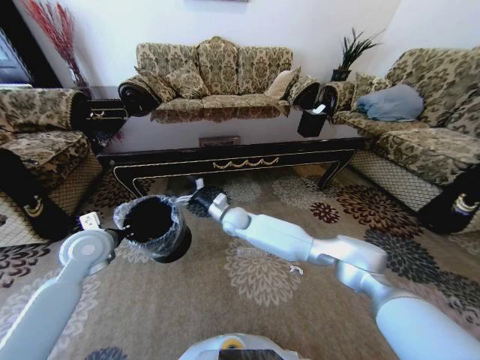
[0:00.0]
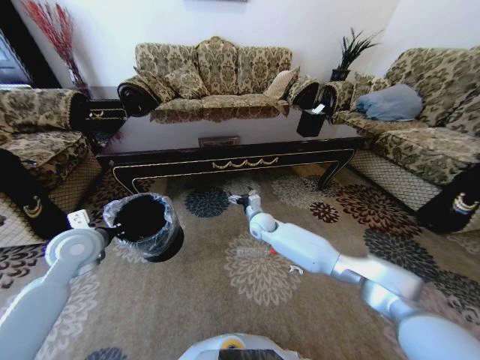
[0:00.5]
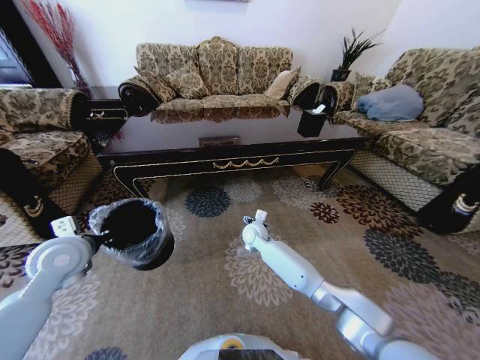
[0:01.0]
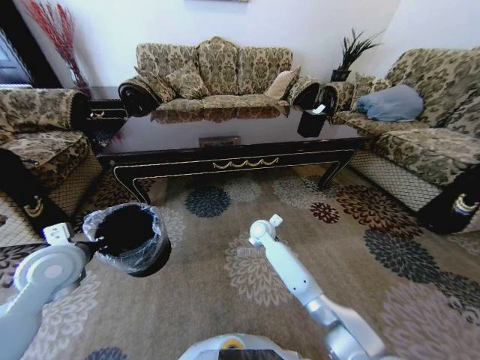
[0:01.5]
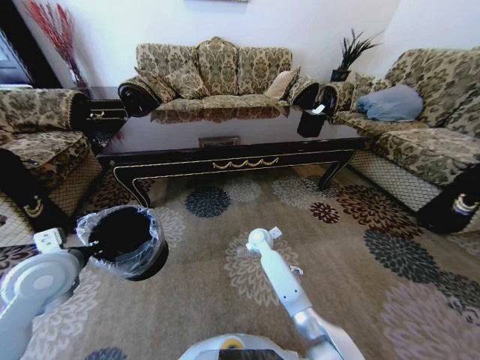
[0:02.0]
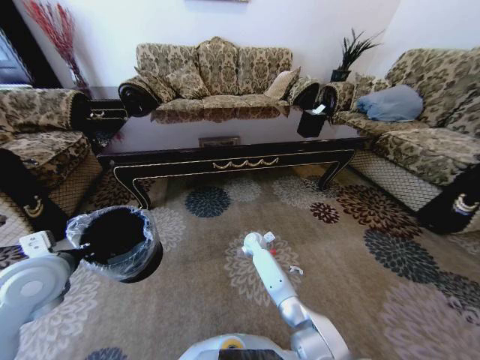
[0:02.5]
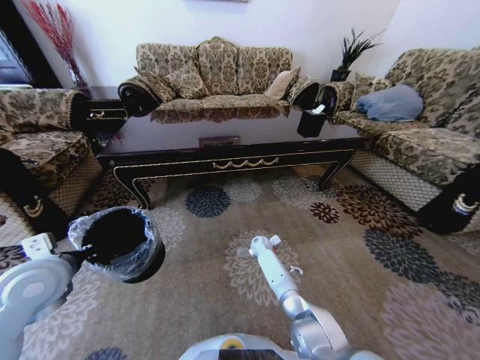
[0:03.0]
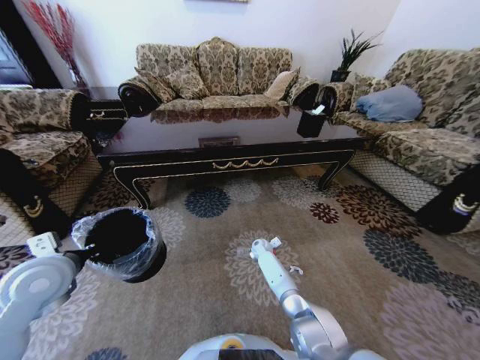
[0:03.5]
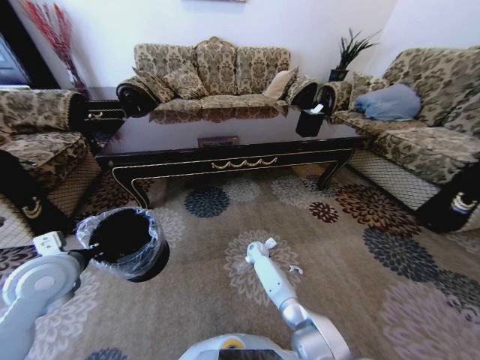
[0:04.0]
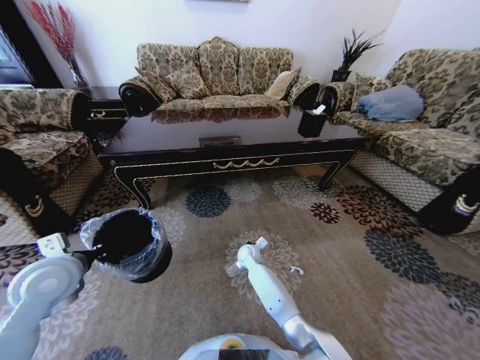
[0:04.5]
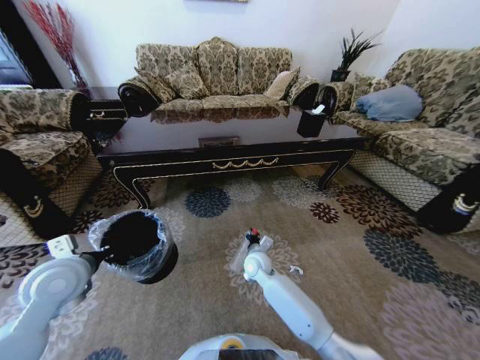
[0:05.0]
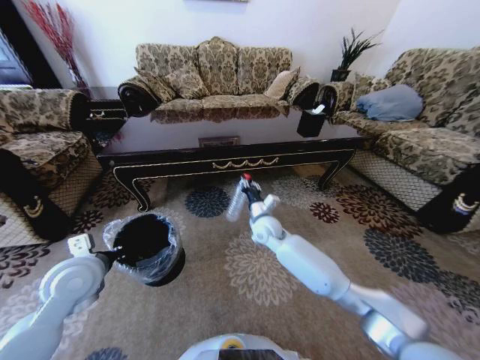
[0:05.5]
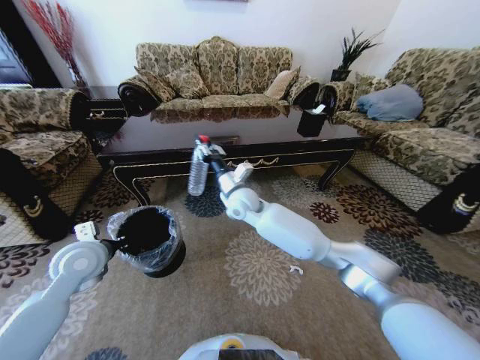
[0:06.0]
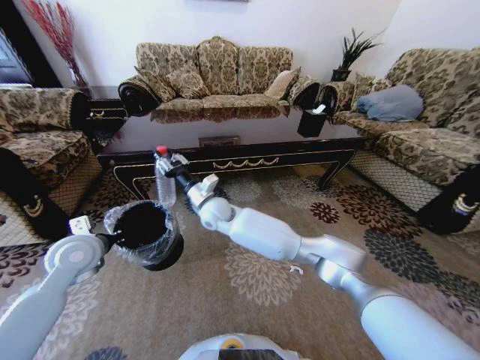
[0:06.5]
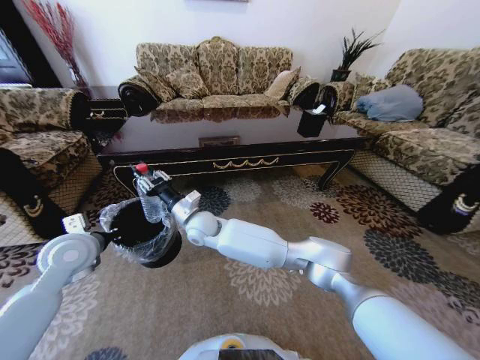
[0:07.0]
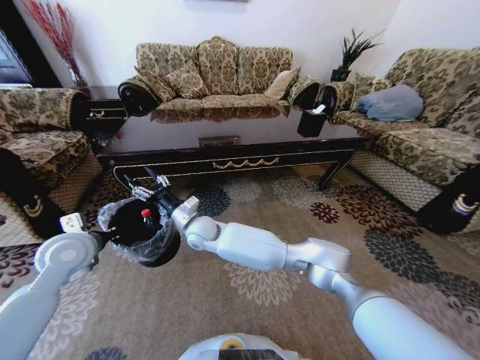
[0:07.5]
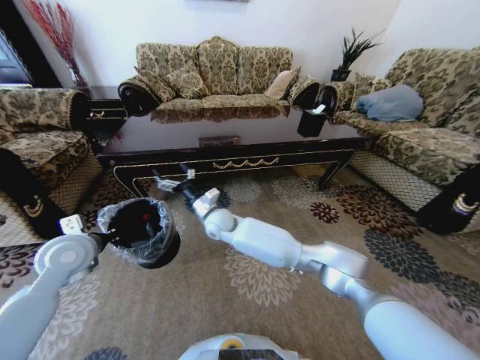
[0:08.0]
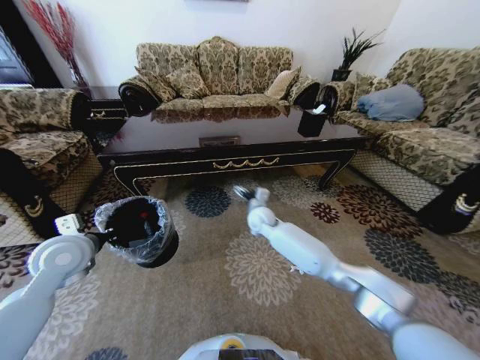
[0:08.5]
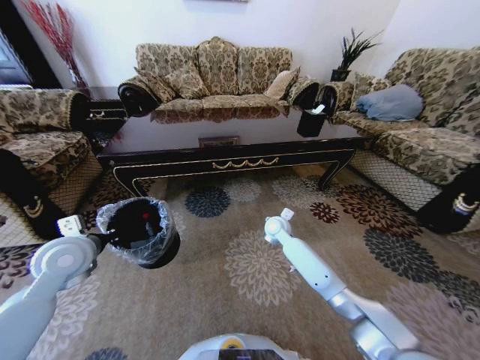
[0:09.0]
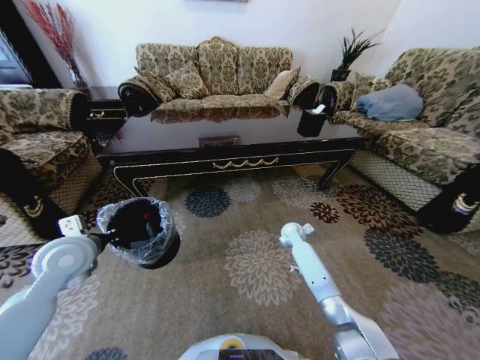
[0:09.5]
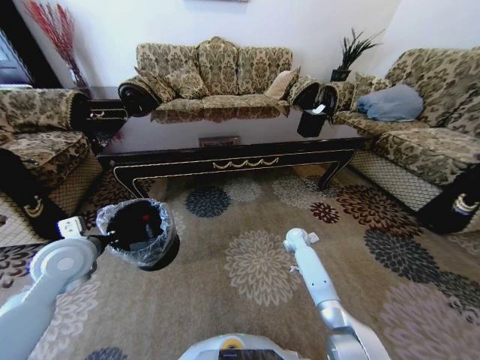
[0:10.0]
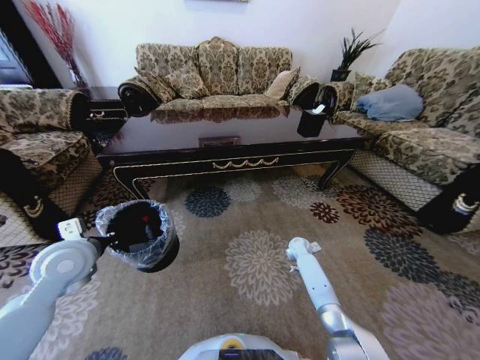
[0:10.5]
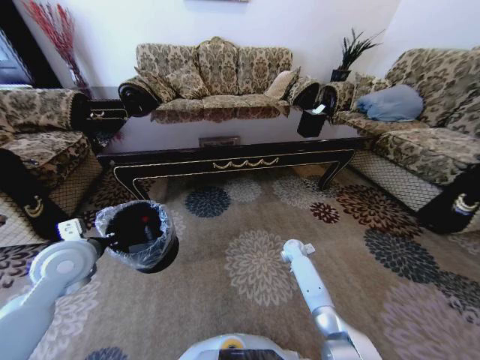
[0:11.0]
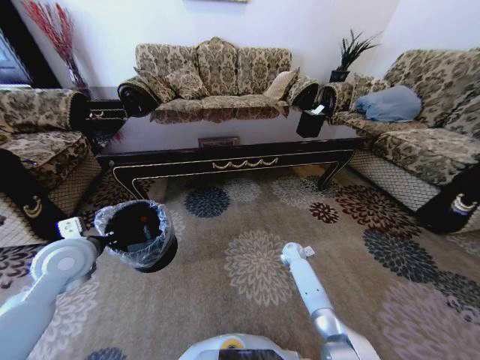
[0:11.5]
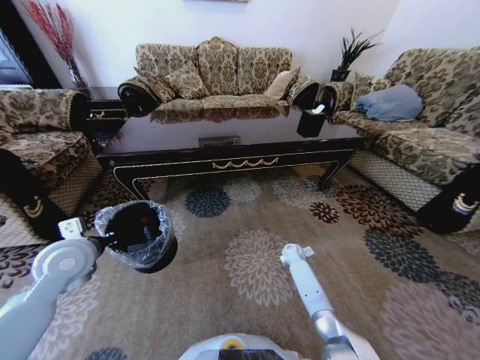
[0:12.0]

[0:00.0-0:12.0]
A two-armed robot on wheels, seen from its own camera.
Task of the whole recording: Move to the front of the table and pick up the trash from the floor, then place it into the trash bin.
0:00.0 to 0:02.0: The left gripper heads backward, covering approximately 10 cm; the right gripper is displaced to the right and downward by about 15 cm.
0:02.0 to 0:04.0: The right gripper moves downward, some 10 cm, and closes.
0:04.0 to 0:06.0: The left gripper ends up roughly 5 cm from where it was. The right gripper heads upward, covering about 35 cm.
0:06.0 to 0:08.0: The right gripper is displaced downward and to the left by about 10 cm, and opens its fingers.
0:08.0 to 0:10.0: The right gripper shifts approximately 35 cm to the right and downward.
0:10.0 to 0:12.0: The right gripper heads downward, covering roughly 5 cm, and closes up.

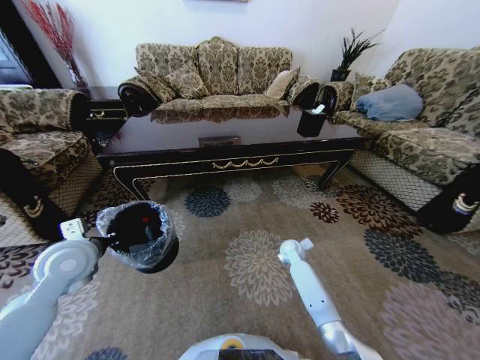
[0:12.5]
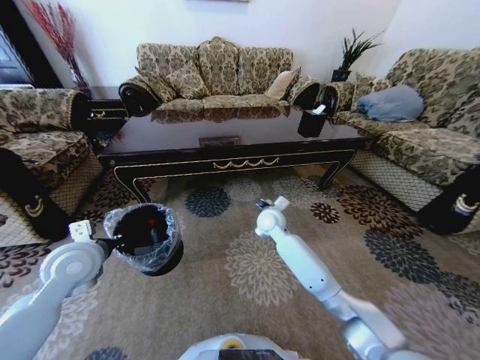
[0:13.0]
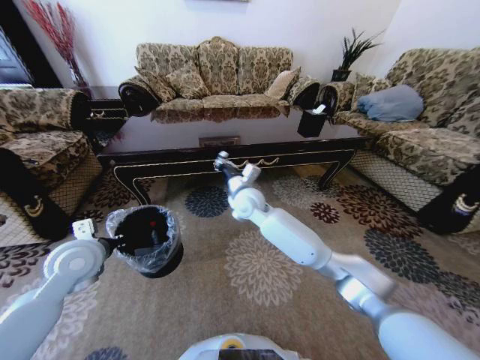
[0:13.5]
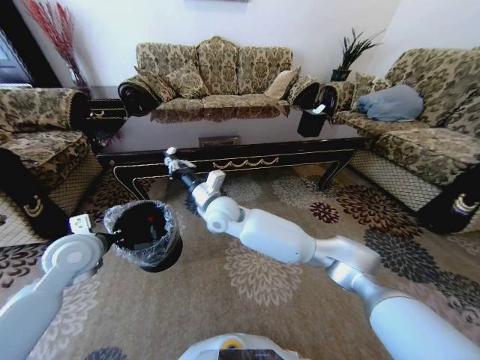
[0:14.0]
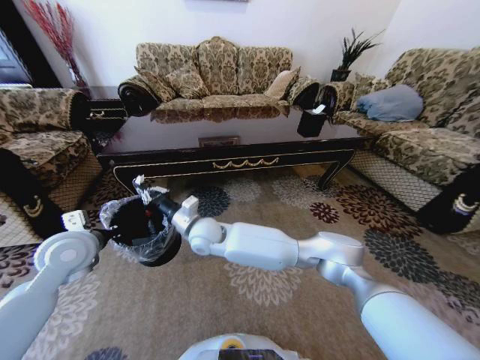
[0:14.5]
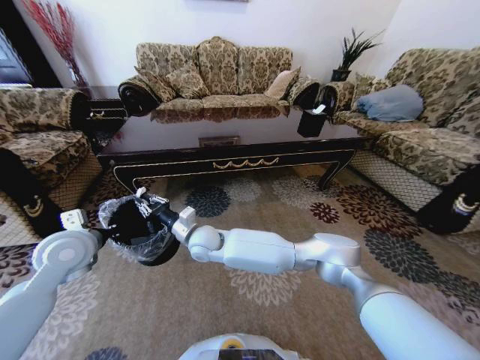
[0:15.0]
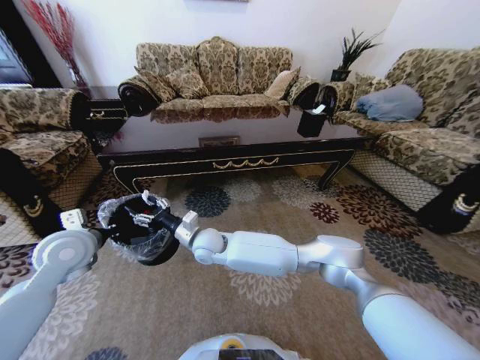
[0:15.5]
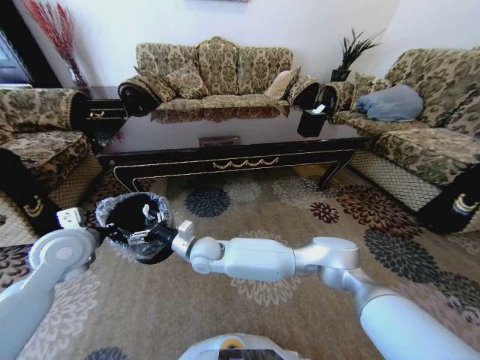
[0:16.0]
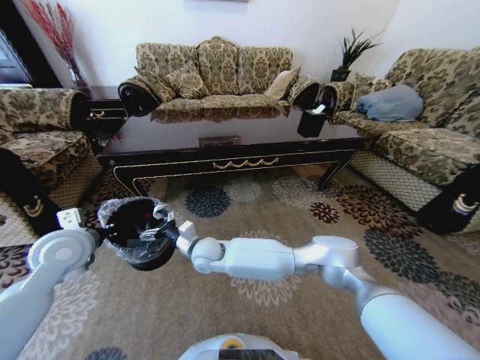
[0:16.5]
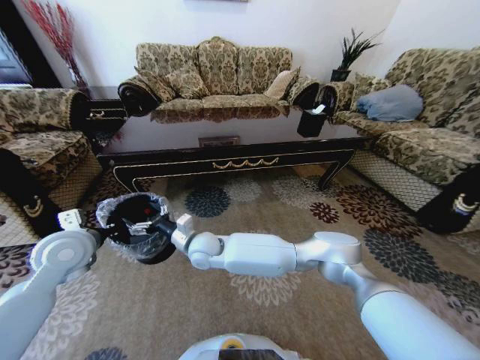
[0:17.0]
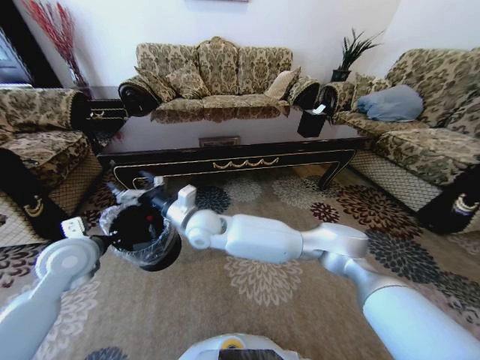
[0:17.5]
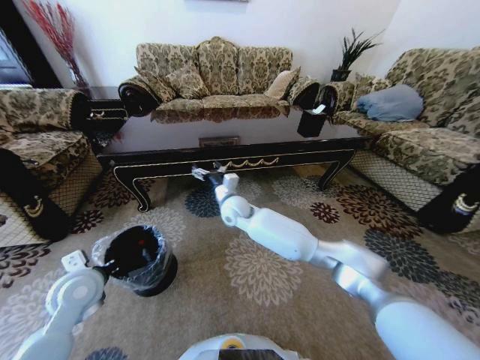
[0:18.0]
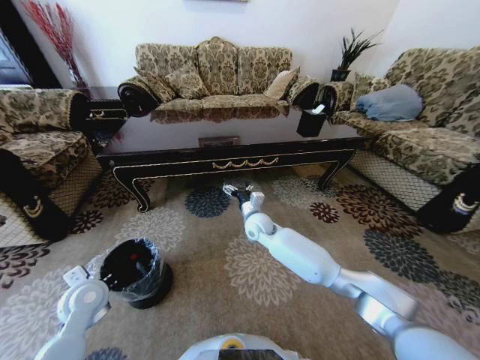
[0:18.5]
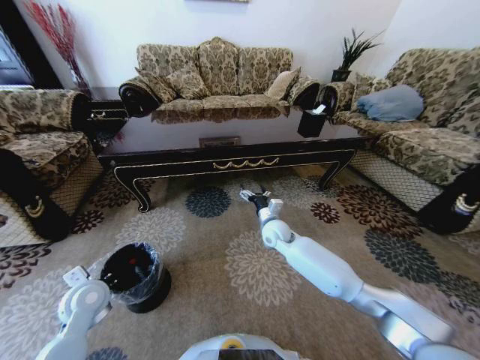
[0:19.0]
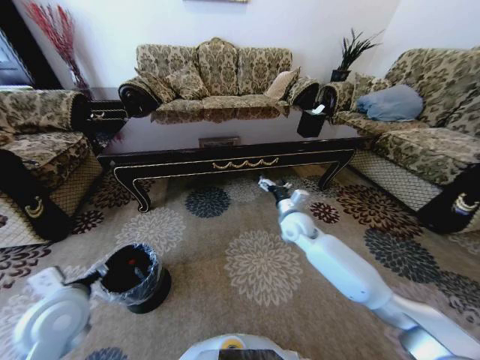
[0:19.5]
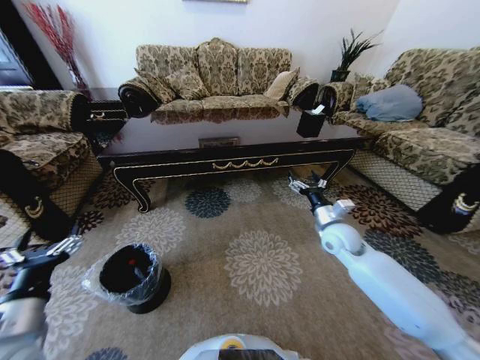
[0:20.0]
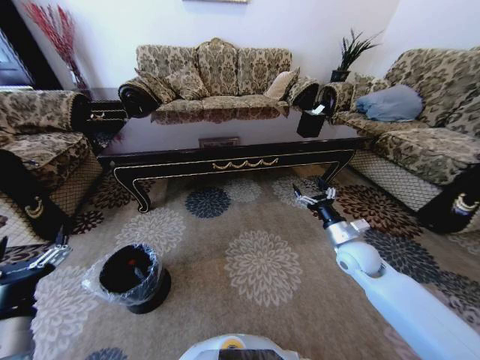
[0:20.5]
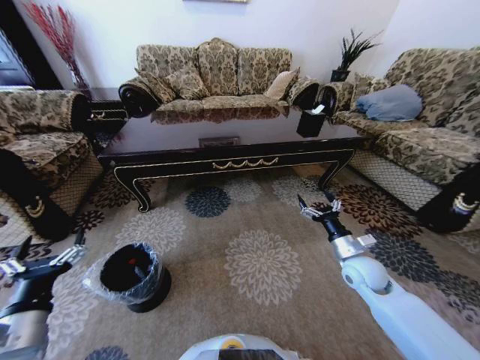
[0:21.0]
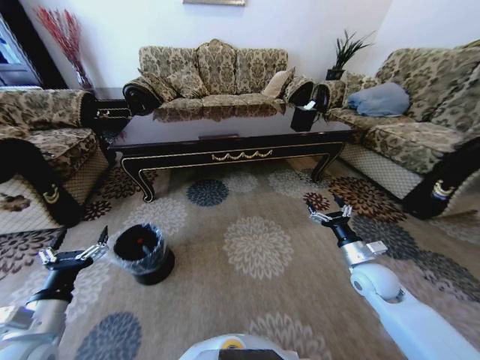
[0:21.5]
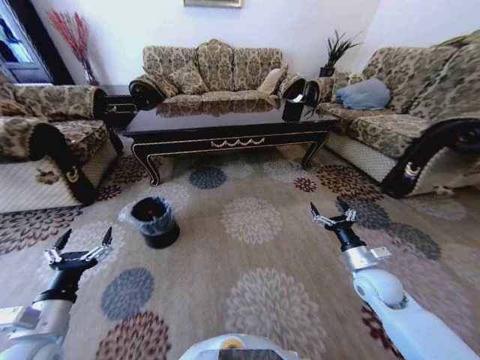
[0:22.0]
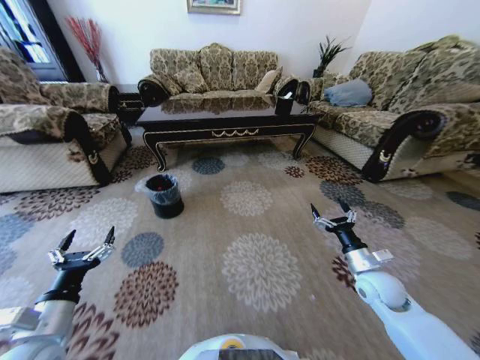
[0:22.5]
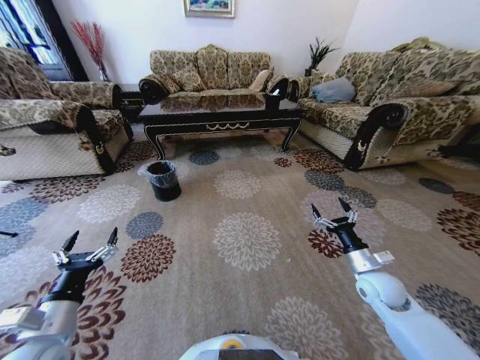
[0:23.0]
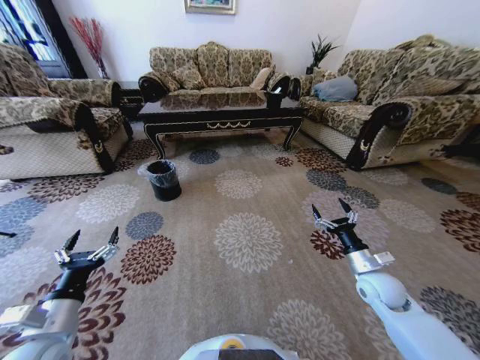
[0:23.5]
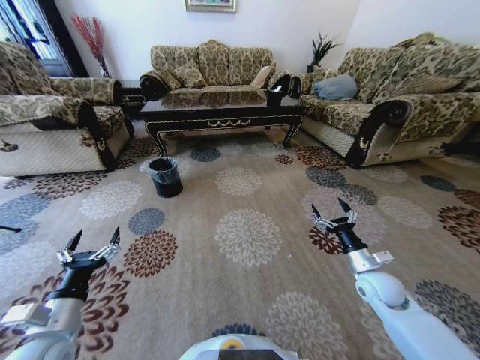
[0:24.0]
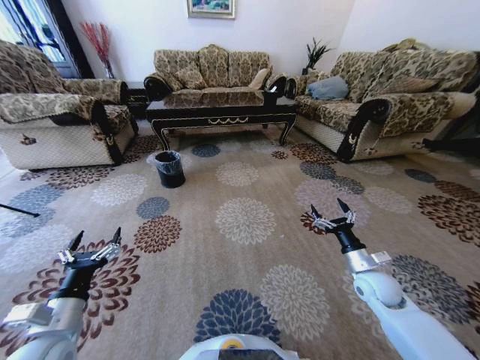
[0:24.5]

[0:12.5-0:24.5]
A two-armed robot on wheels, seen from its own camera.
Task of the whole recording: Move to the front of the table and pick up the trash from the floor, then place it into the trash bin.
0:12.5 to 0:14.5: The right gripper shifts roughly 40 cm to the left and upward.
0:14.5 to 0:16.5: The right gripper is displaced downward by roughly 5 cm, and opens up.
0:16.5 to 0:18.5: The left gripper goes approximately 15 cm downward; the right gripper goes approximately 20 cm to the right and forward.
0:18.5 to 0:20.5: The left gripper shifts roughly 20 cm backward and upward, and opens up. The right gripper shifts approximately 30 cm to the right and backward.
0:20.5 to 0:22.5: The right gripper goes about 5 cm backward.

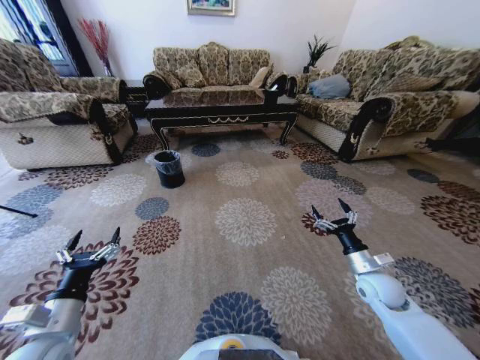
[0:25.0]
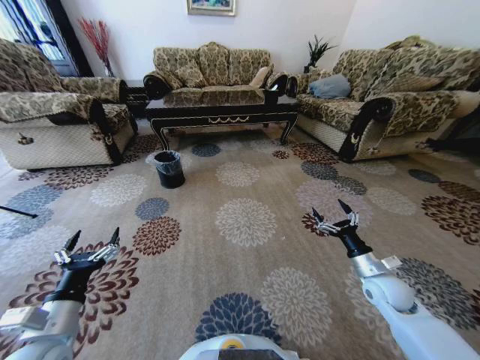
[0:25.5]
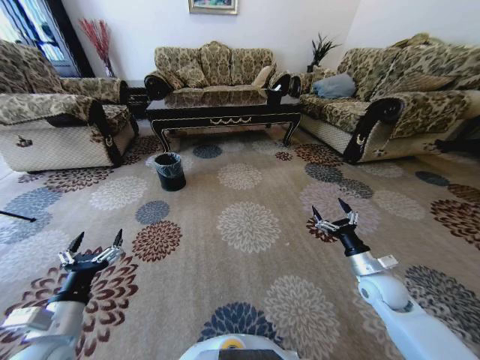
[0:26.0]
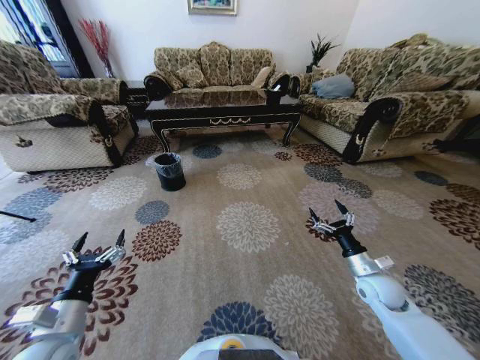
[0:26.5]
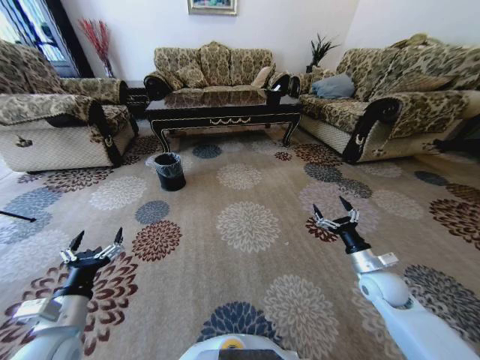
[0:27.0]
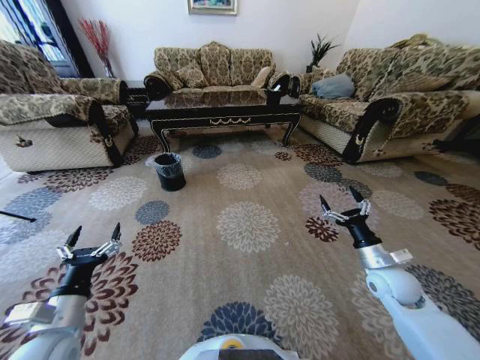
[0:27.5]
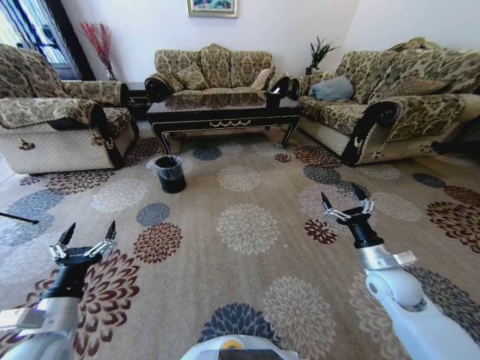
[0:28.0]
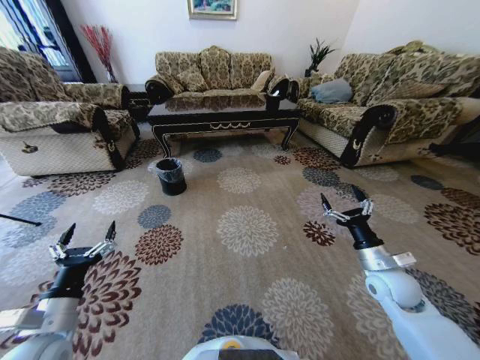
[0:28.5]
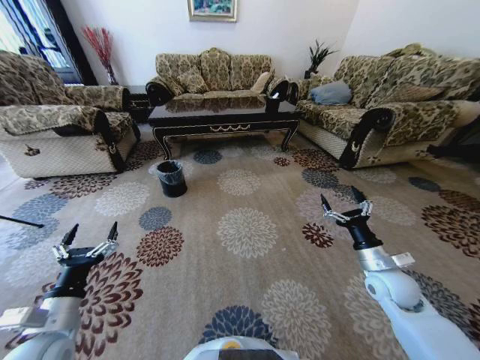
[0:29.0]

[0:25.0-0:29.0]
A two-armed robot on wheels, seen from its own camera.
Task of the whole recording: Move to the front of the table and pick up the trash from the floor, then place it into the trash bin.
0:25.0 to 0:27.0: The grippers stay close to where they were, moving slightly.
